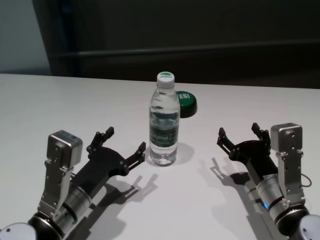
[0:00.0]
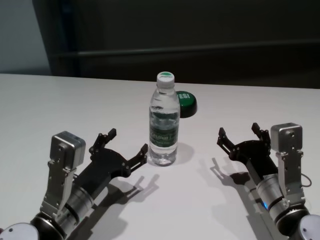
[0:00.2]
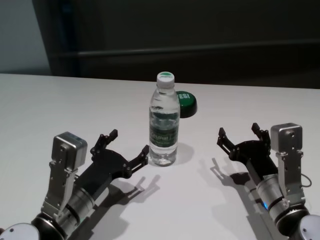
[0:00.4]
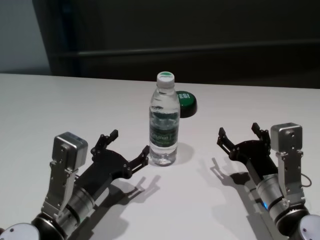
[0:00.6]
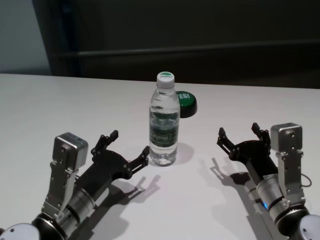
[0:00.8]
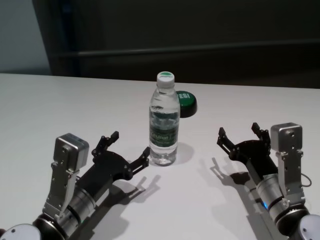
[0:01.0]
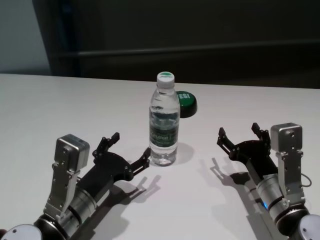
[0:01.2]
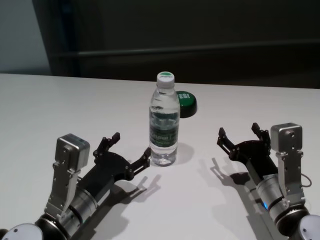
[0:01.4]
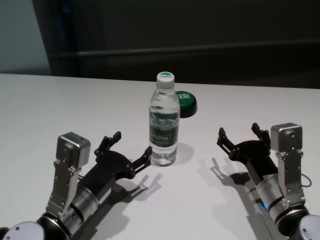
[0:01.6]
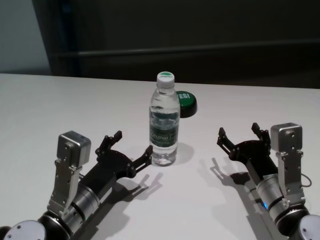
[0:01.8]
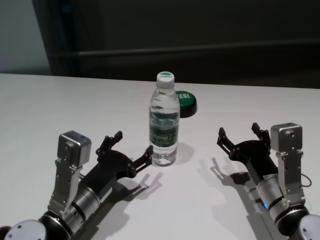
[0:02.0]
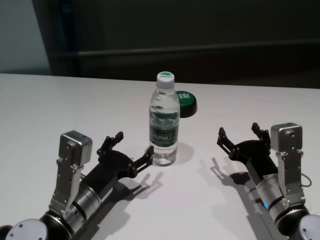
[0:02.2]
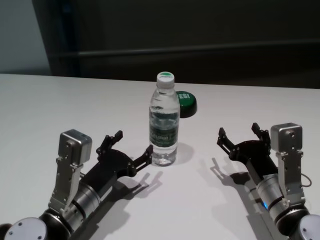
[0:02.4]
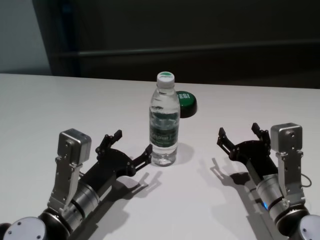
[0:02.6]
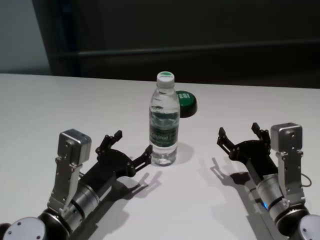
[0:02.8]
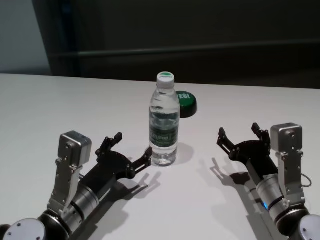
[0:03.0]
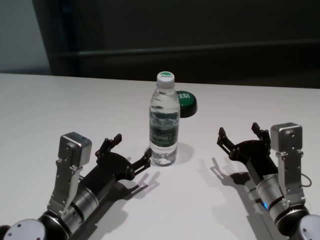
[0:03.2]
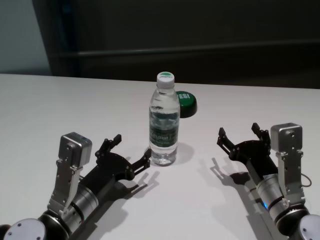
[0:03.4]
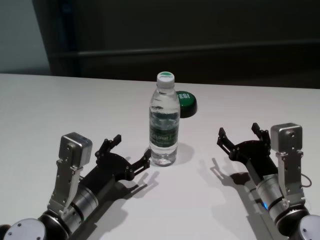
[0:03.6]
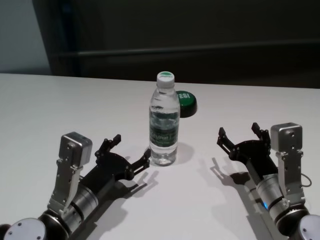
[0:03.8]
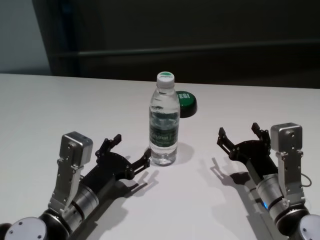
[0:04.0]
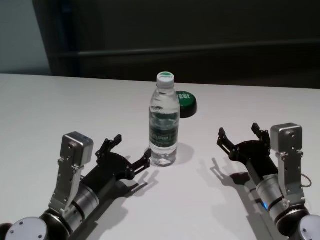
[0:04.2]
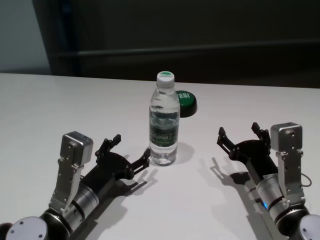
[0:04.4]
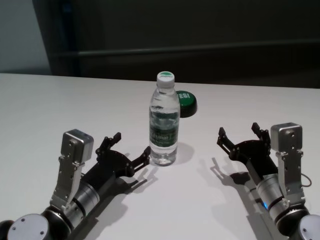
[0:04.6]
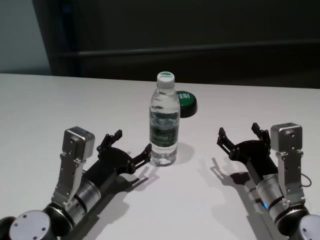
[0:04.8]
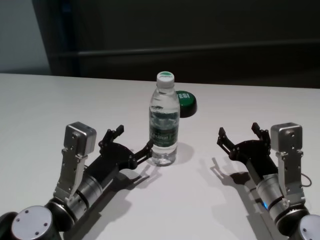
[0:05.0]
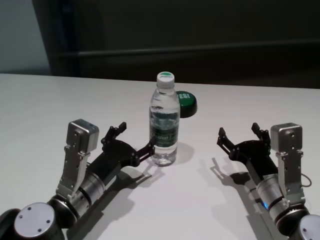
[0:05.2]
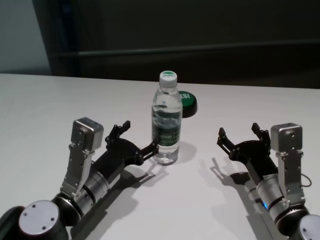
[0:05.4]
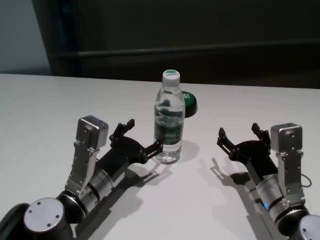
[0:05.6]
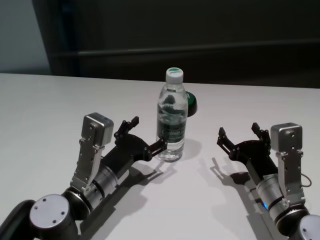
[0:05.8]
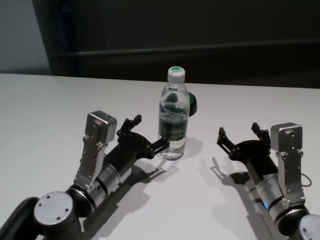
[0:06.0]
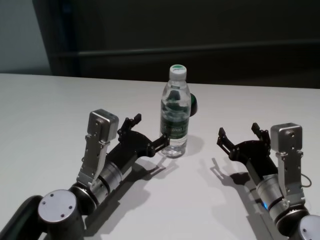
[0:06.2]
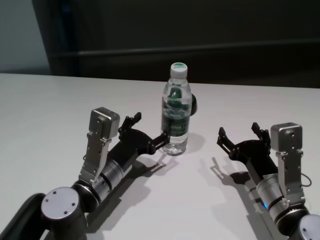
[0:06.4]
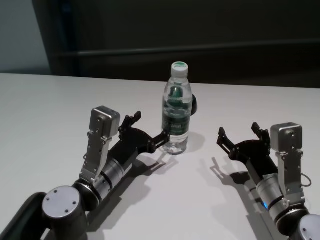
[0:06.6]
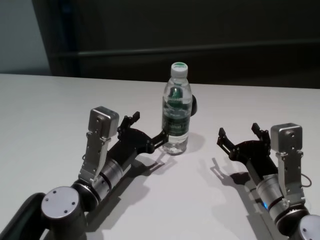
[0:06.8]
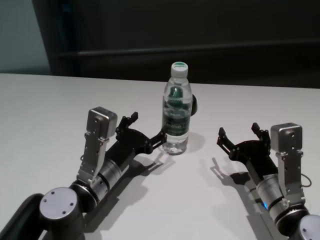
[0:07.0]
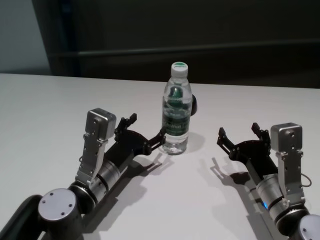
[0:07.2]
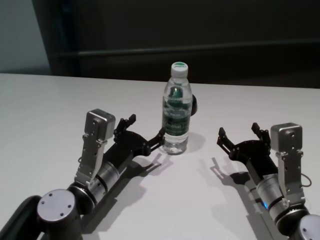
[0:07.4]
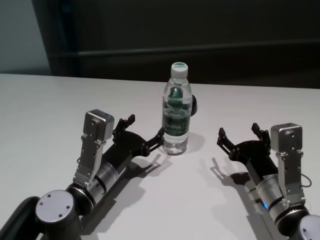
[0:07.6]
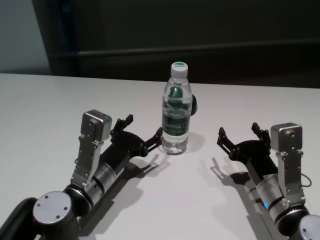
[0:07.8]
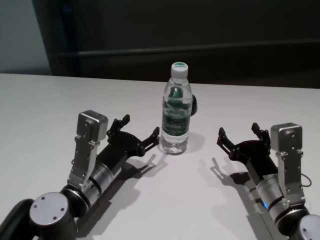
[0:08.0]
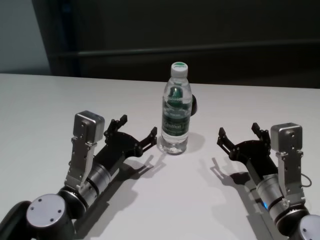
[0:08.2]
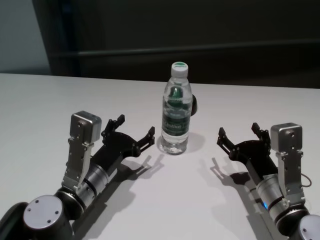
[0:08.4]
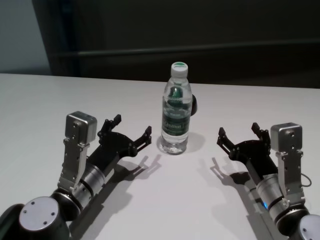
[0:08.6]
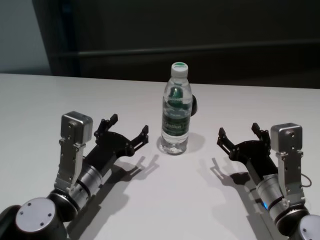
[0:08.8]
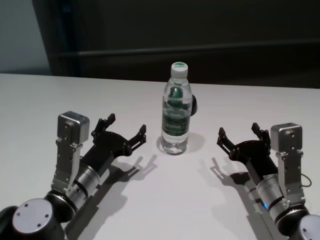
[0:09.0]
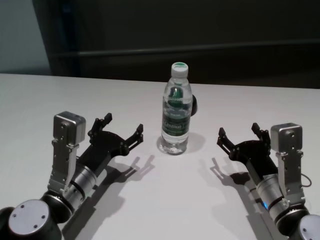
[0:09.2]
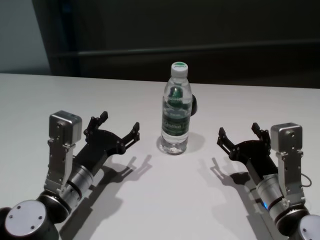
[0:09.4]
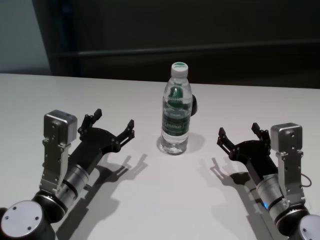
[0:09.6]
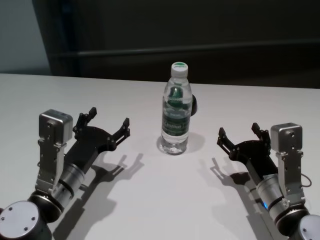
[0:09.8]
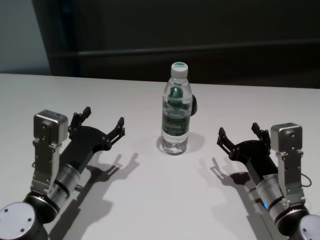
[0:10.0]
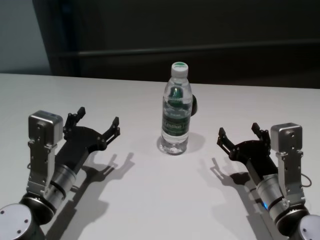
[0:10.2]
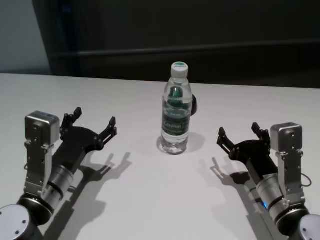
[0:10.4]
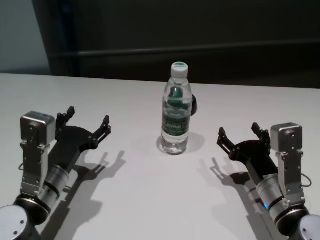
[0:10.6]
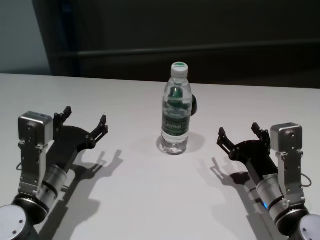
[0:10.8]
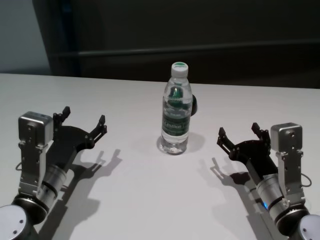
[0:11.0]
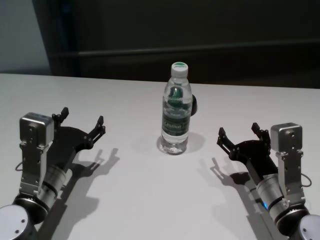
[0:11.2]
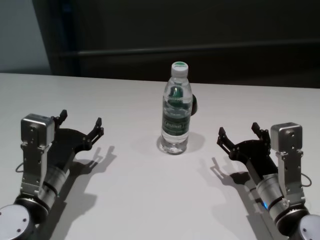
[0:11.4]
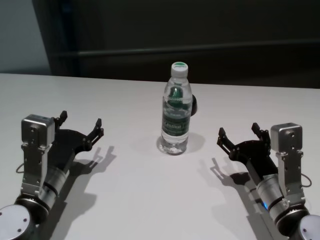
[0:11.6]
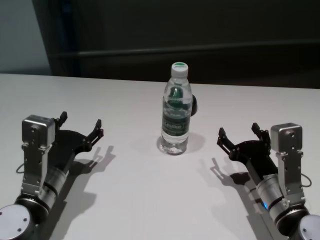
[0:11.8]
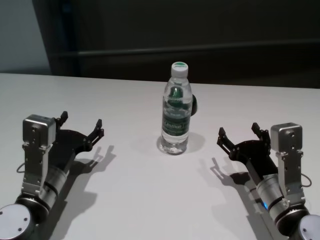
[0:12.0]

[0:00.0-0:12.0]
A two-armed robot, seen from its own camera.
Task of the whole recording: return to a safe position after touching an obstacle with your arm on the white table.
Step, 0:00.0 to 0:08.6: Touch the bottle with left gripper.
